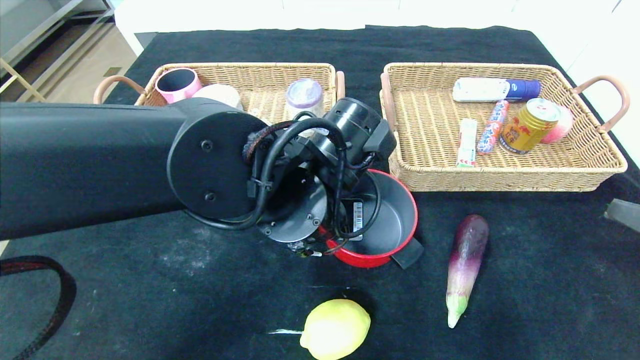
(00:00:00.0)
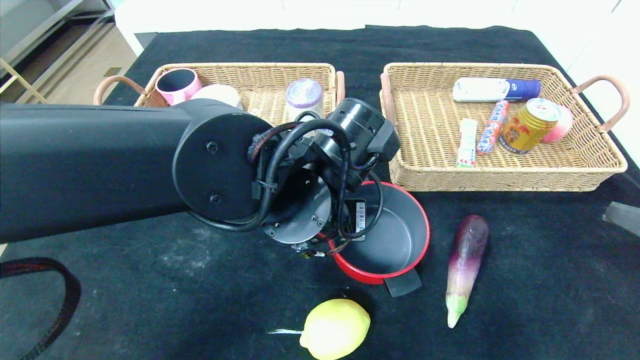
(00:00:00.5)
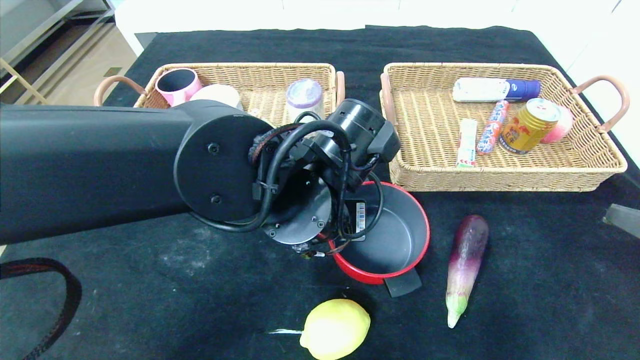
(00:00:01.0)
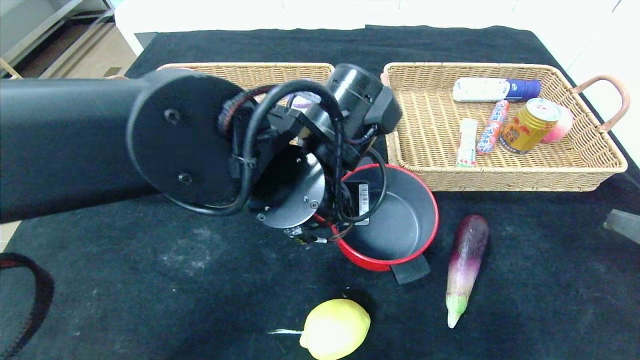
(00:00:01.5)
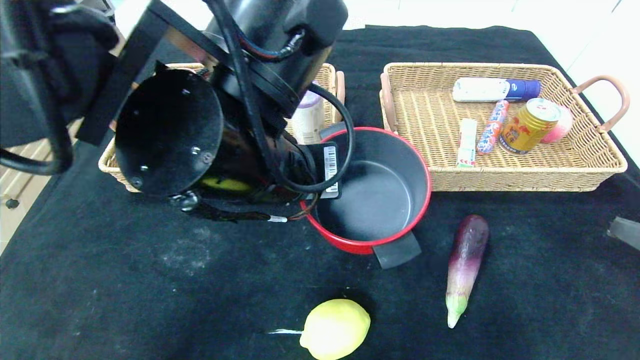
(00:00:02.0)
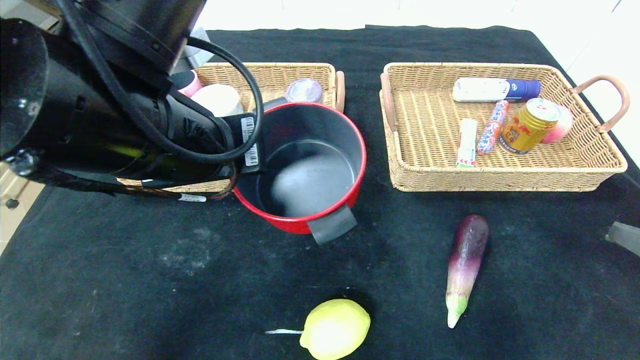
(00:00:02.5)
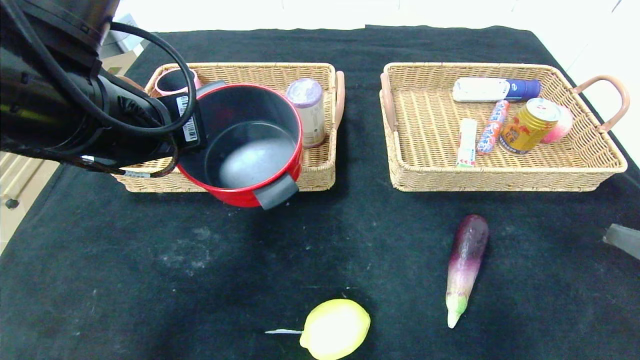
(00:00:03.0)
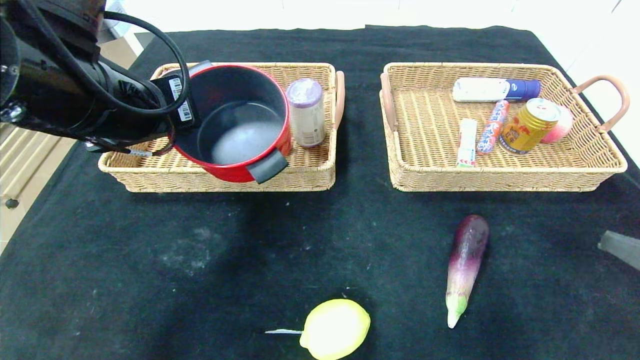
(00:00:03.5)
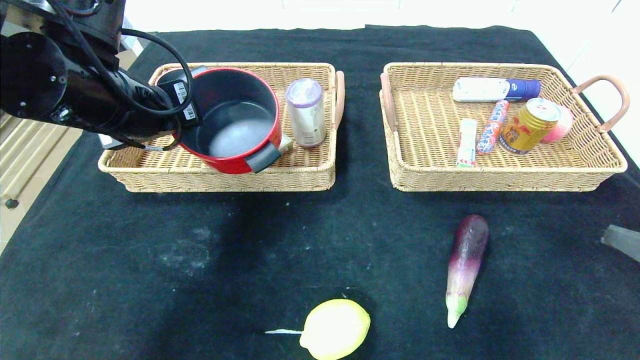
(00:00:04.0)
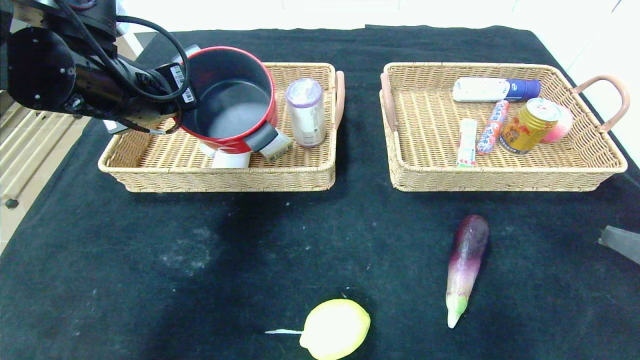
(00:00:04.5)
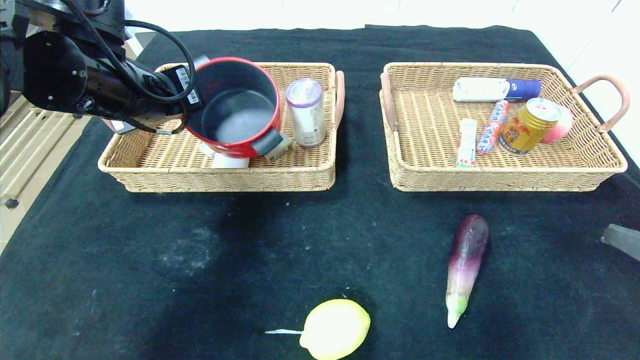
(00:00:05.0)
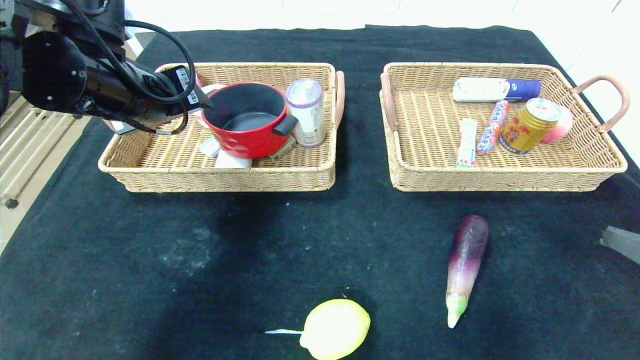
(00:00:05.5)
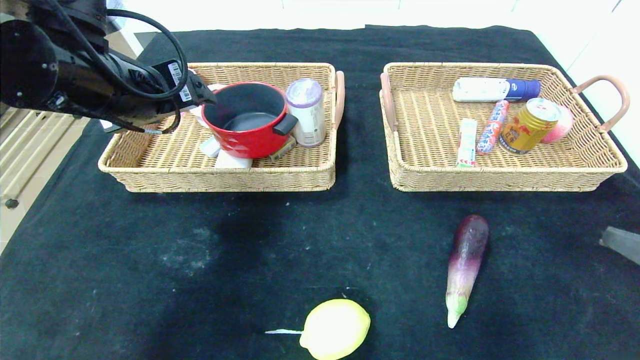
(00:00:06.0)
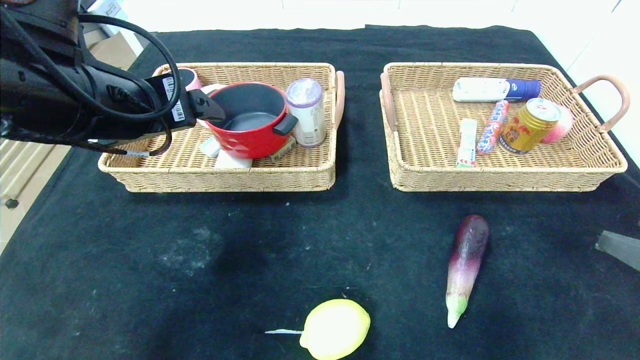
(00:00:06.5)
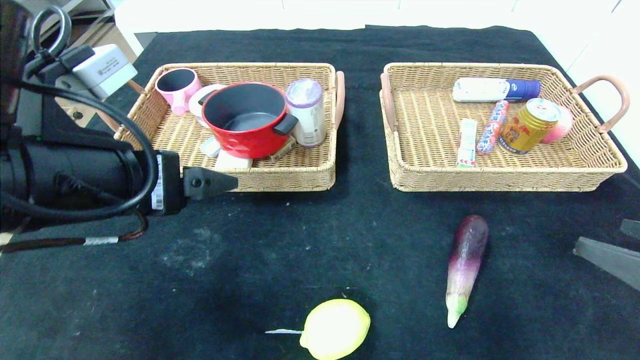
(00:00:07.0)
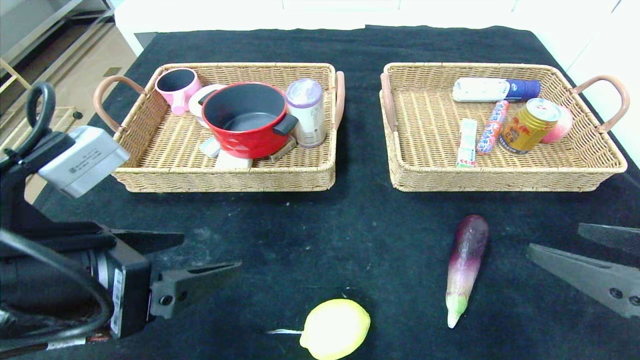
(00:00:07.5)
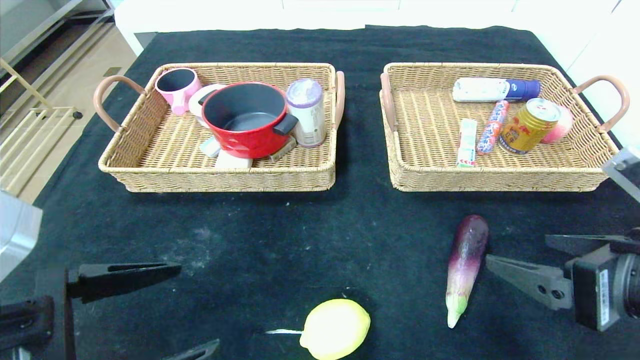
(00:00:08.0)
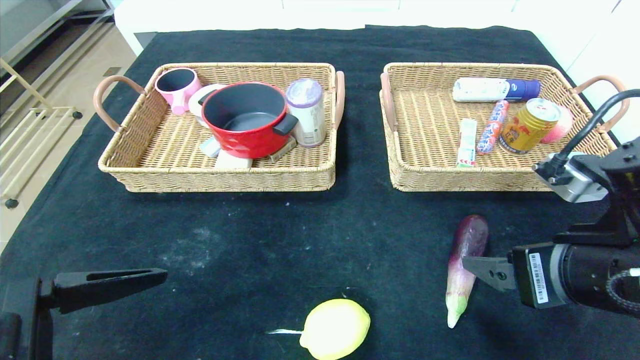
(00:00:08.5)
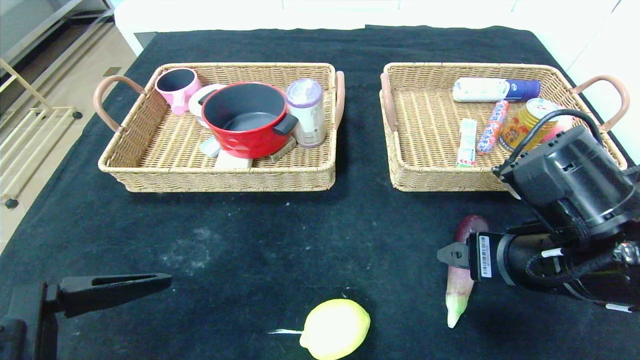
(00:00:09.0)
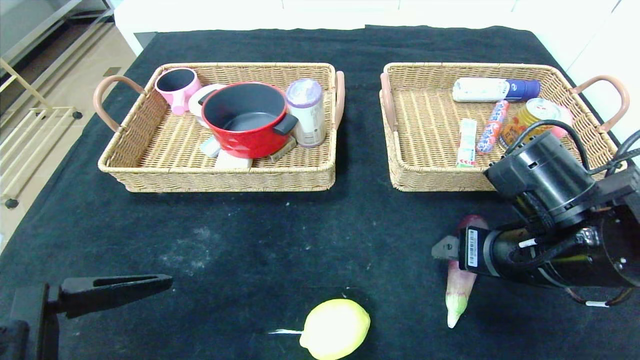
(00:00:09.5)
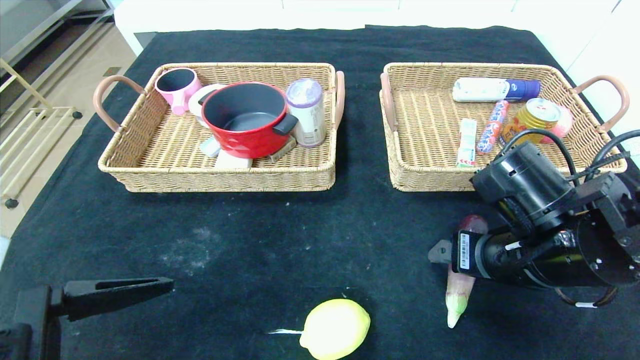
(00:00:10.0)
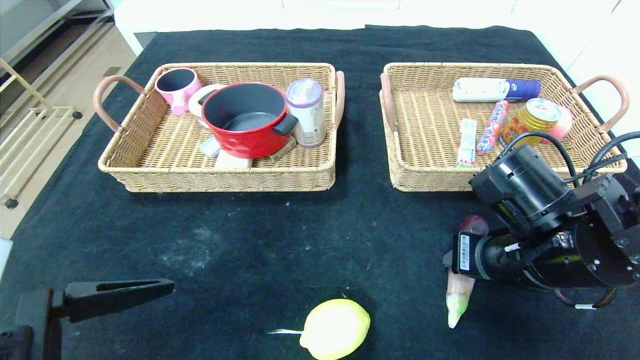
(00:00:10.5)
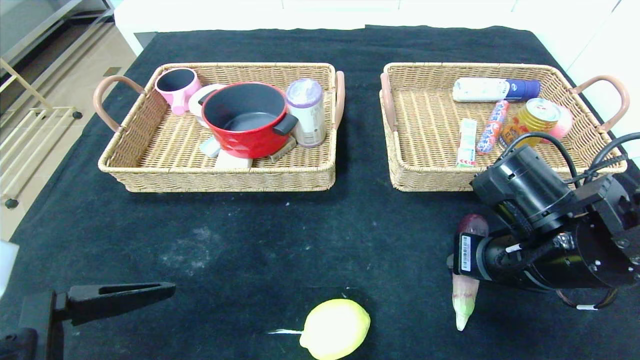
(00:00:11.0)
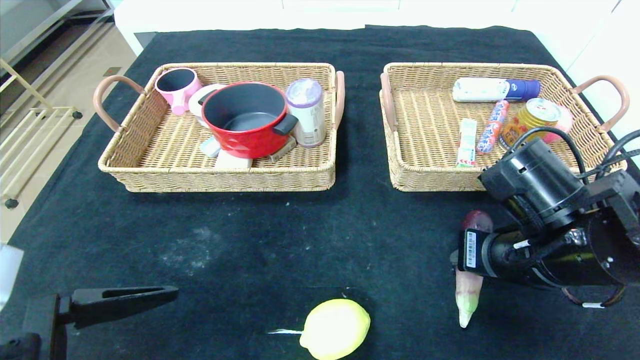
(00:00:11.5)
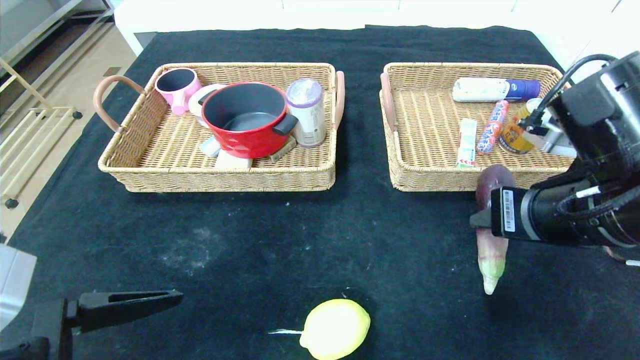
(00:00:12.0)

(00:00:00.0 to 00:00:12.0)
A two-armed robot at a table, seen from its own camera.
Step, 00:00:00.0 - 00:00:07.0: Pick up the red pot and put it in the left basket.
00:00:00.0 - 00:00:02.0: The left gripper is displaced upward by roughly 5 cm, and closes its fingers.
00:00:02.0 - 00:00:04.0: The left gripper moves to the left and forward, approximately 15 cm.
00:00:04.0 - 00:00:06.0: The left gripper opens its fingers.
00:00:06.0 - 00:00:08.0: The left gripper shifts approximately 20 cm backward and downward, while the right gripper travels to the left and forward by about 10 cm.
00:00:08.0 - 00:00:10.0: The right gripper heads forward and to the left, covering some 10 cm.
00:00:10.0 - 00:00:12.0: The right gripper goes roughly 5 cm upward, and closes its fingers.

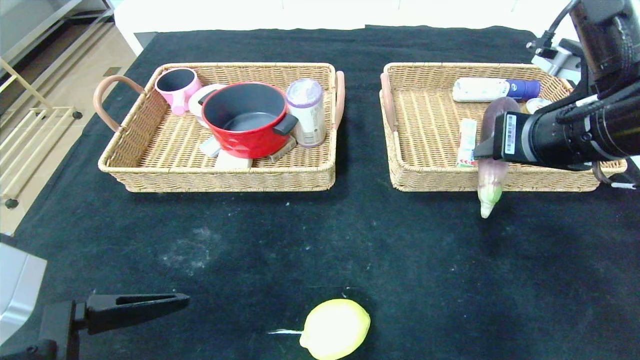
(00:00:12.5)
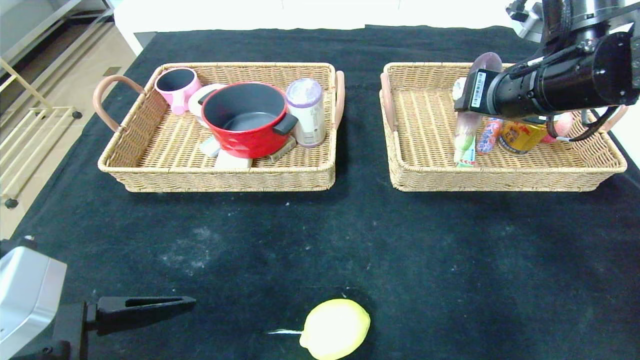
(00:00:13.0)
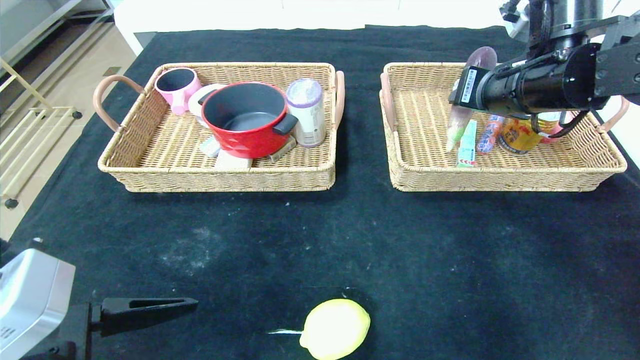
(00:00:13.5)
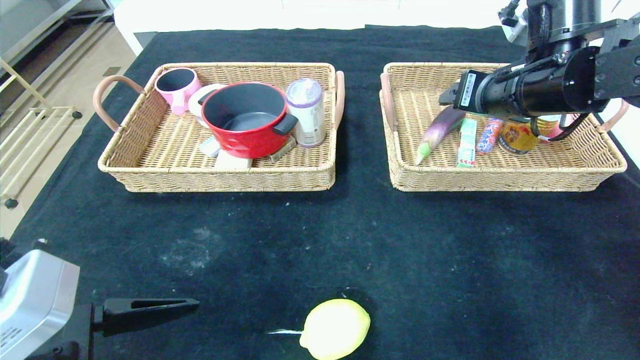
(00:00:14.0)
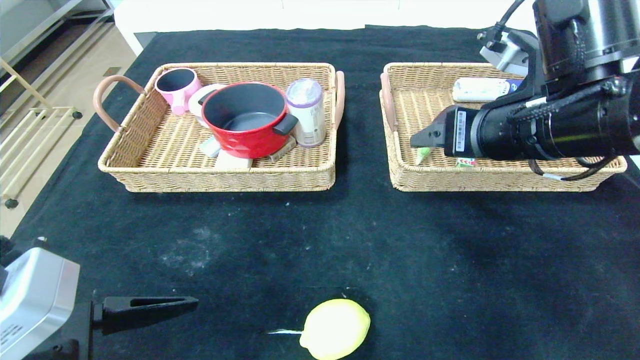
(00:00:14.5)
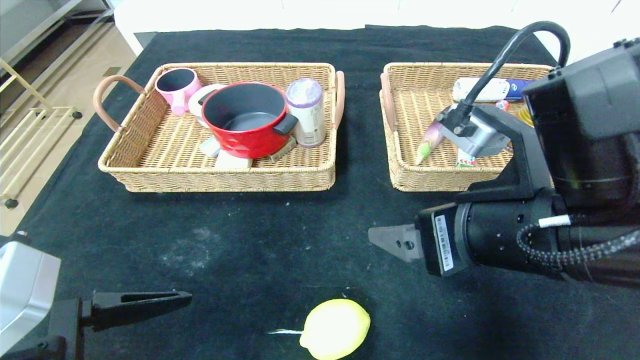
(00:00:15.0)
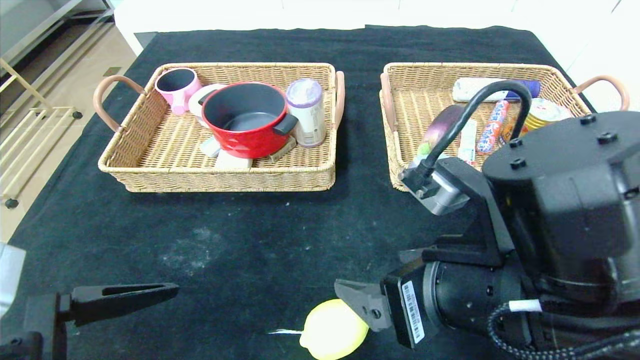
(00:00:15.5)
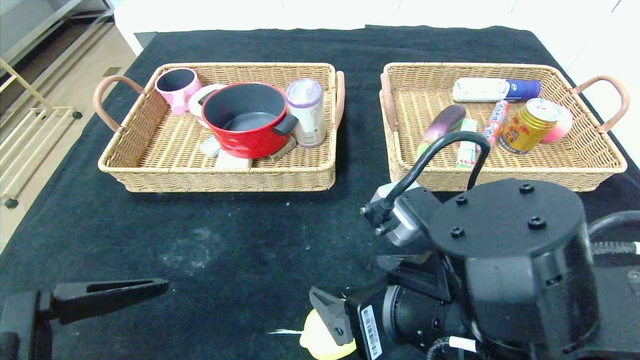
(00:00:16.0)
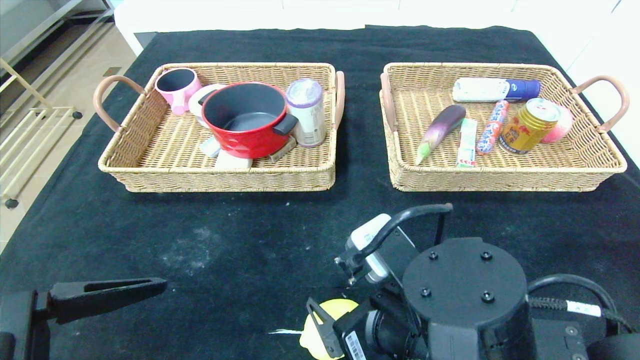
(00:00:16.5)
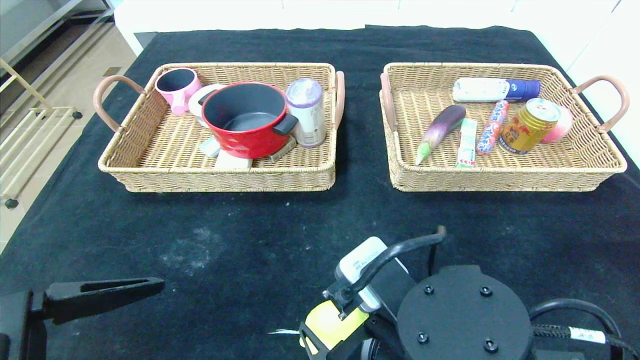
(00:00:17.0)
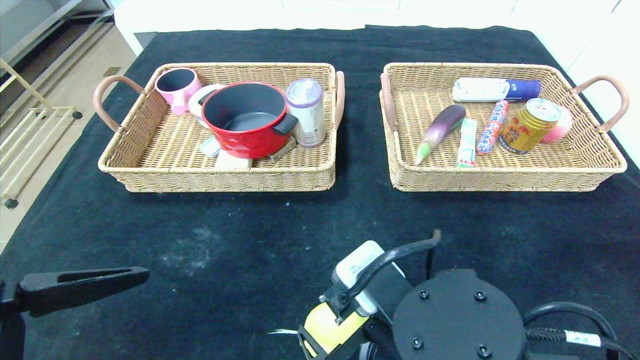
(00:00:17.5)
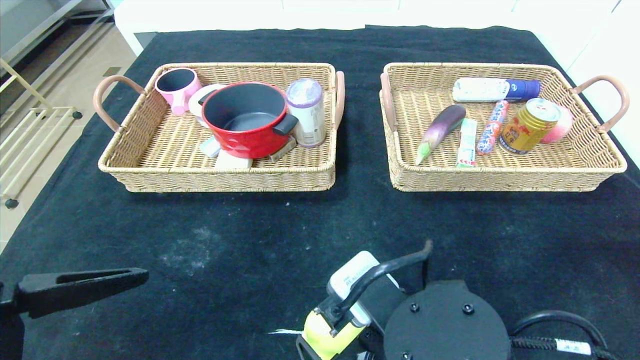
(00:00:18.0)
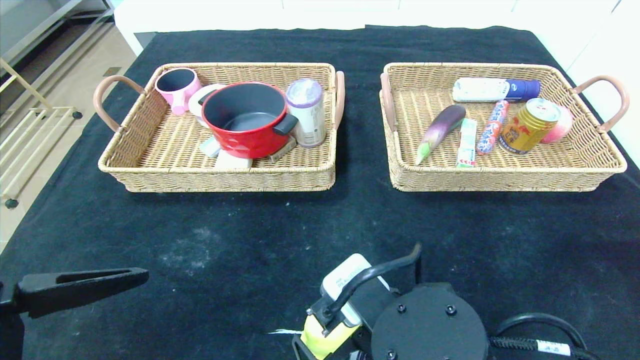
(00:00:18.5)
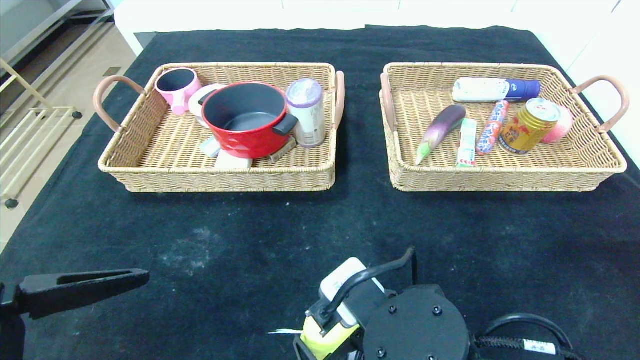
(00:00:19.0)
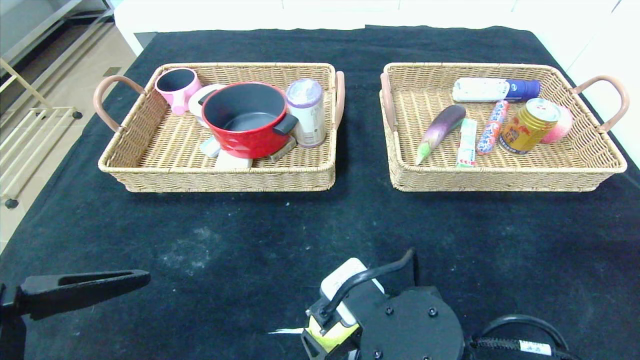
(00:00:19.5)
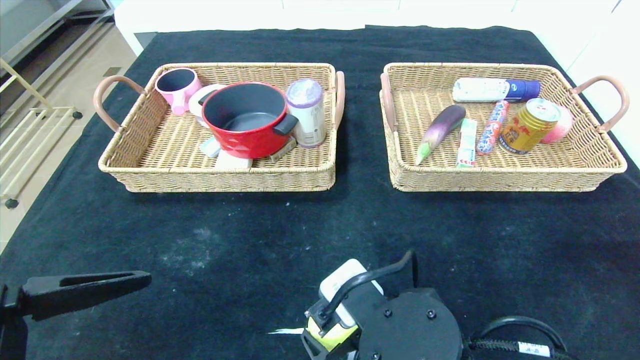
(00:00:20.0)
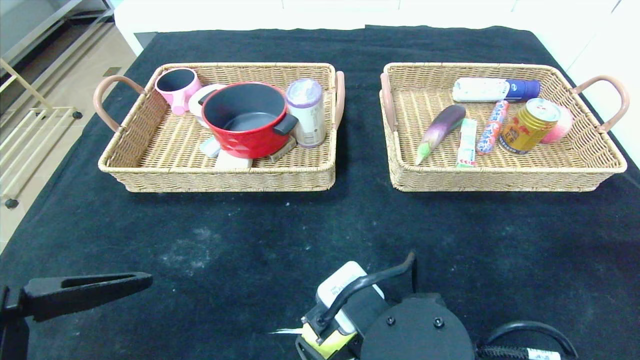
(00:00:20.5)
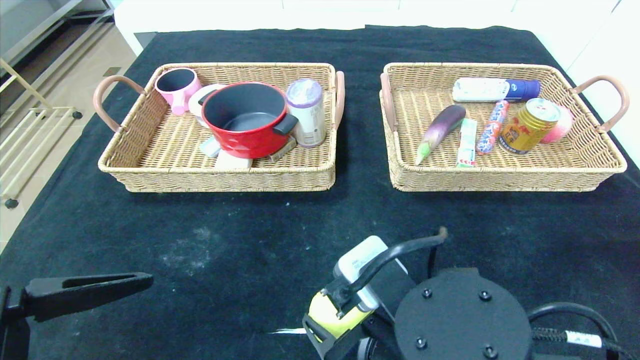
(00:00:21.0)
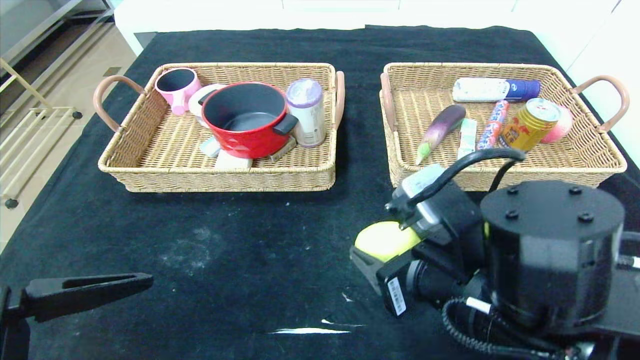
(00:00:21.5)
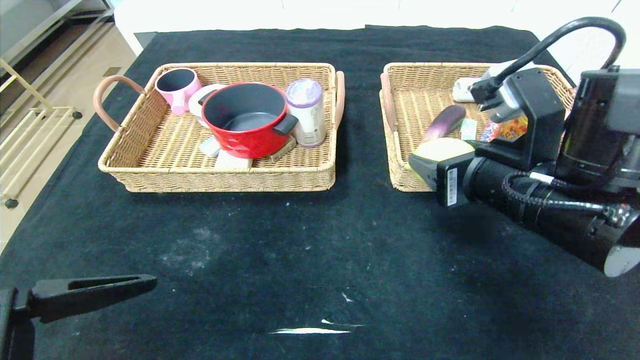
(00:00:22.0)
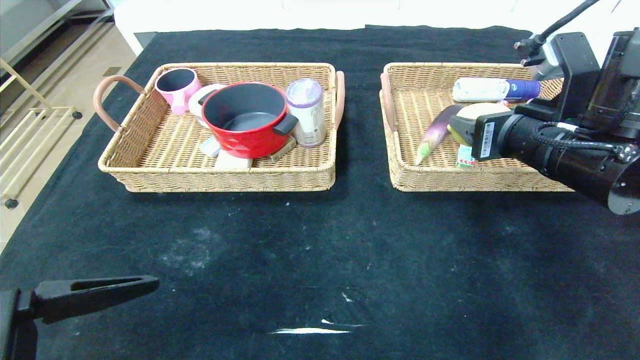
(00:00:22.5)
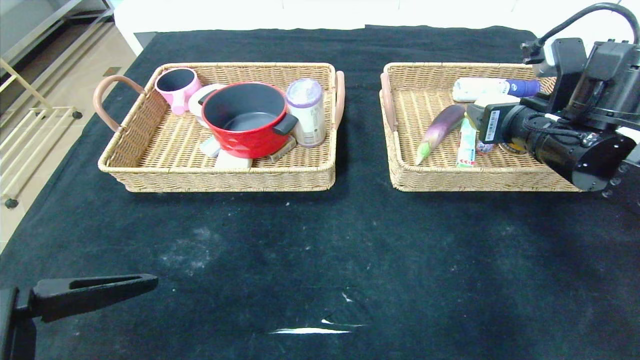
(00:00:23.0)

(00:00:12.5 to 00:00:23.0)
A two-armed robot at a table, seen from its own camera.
Step, 00:00:12.5 - 00:00:14.5: Pick up the eggplant and put it in the right basket.
00:00:12.5 - 00:00:14.5: The right gripper travels forward and back again, roughly 10 cm each way, and opens.
00:00:14.5 - 00:00:16.5: The right gripper heads downward, backward and to the left, covering roughly 20 cm.
00:00:16.5 - 00:00:21.0: The grippers make only small movements.
00:00:21.0 - 00:00:23.0: The right gripper heads forward, to the right and upward, covering some 25 cm.
